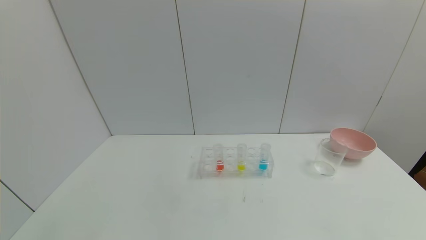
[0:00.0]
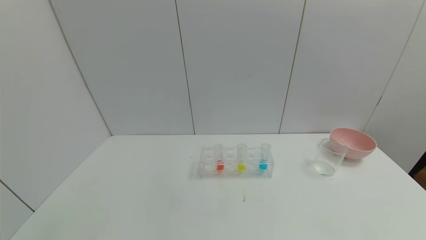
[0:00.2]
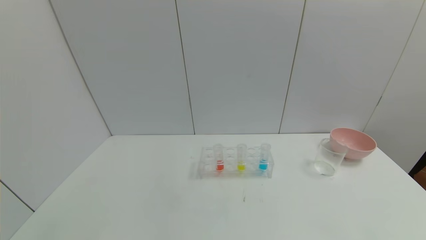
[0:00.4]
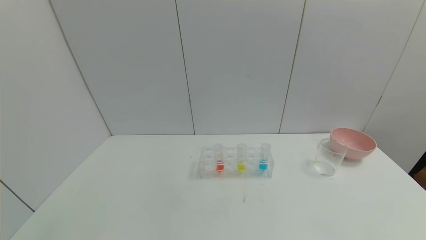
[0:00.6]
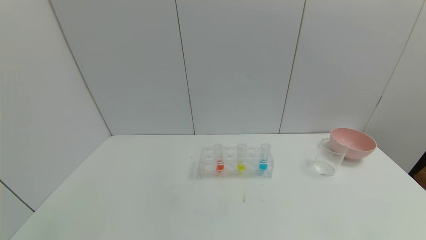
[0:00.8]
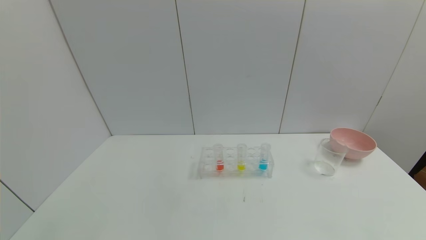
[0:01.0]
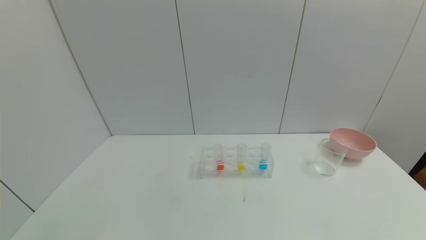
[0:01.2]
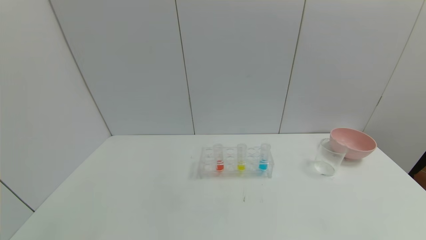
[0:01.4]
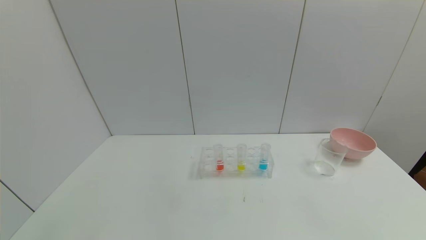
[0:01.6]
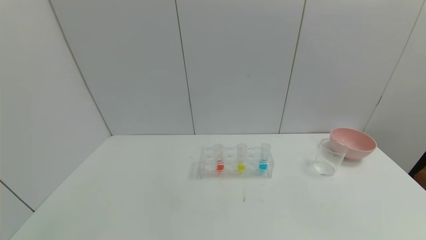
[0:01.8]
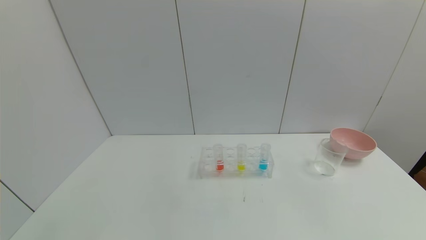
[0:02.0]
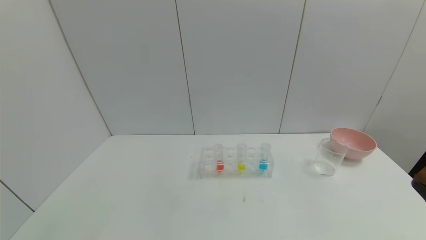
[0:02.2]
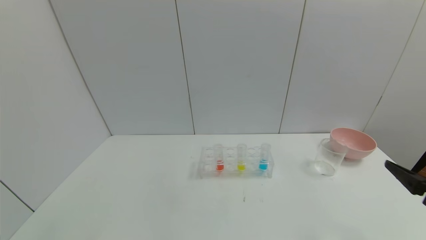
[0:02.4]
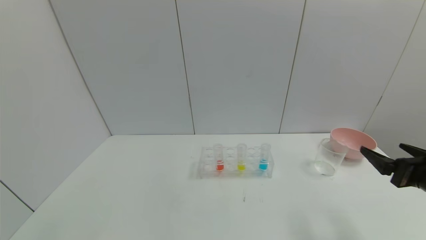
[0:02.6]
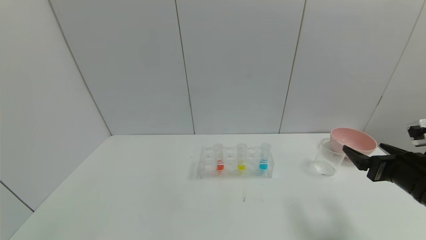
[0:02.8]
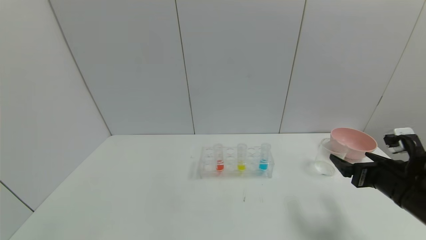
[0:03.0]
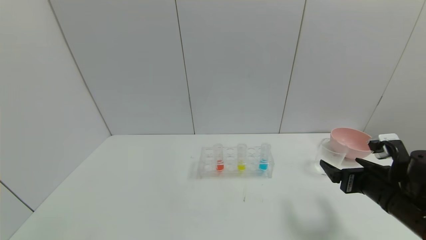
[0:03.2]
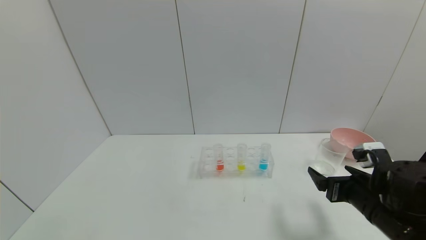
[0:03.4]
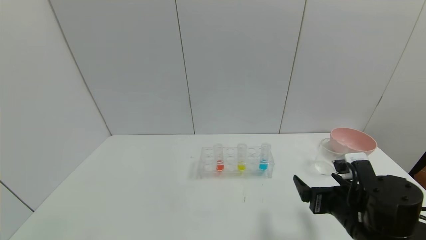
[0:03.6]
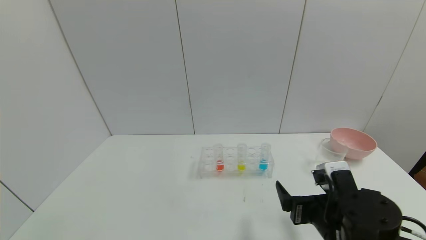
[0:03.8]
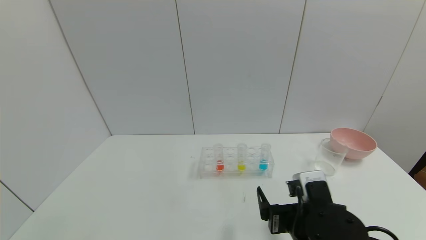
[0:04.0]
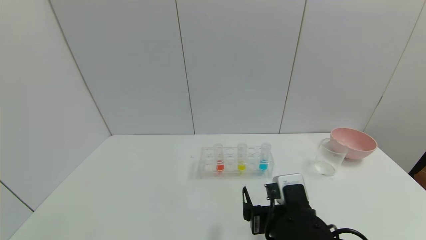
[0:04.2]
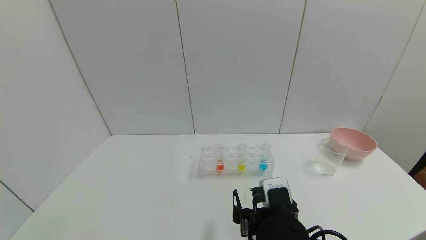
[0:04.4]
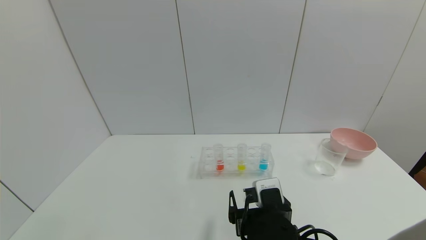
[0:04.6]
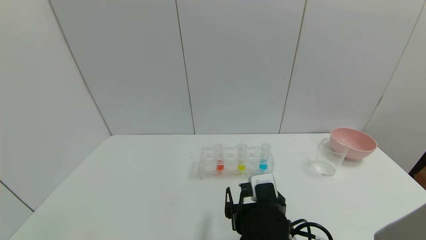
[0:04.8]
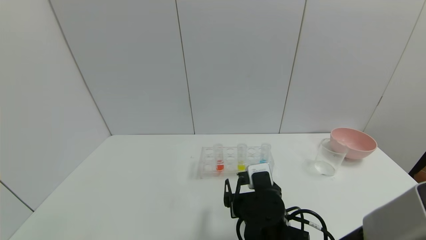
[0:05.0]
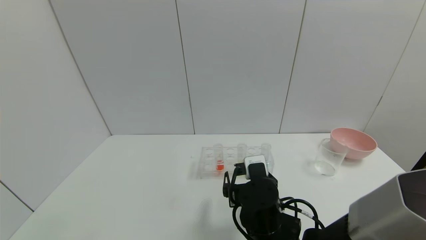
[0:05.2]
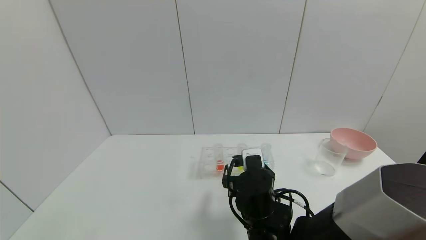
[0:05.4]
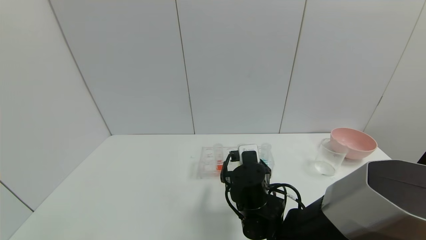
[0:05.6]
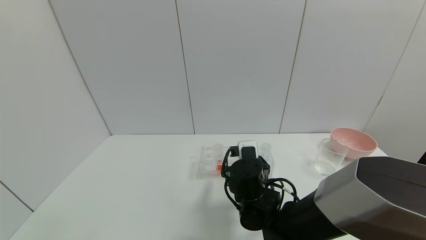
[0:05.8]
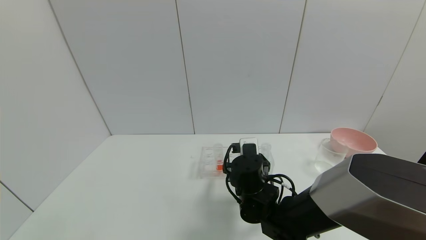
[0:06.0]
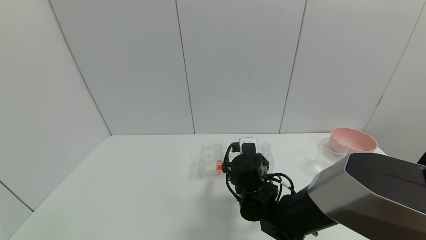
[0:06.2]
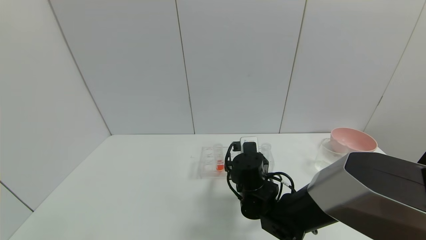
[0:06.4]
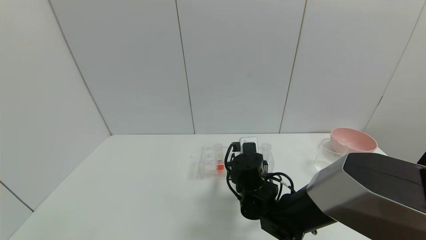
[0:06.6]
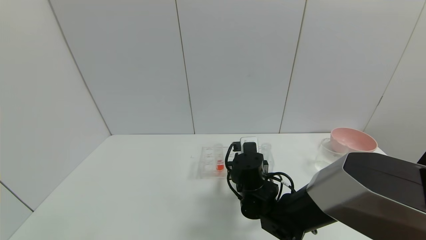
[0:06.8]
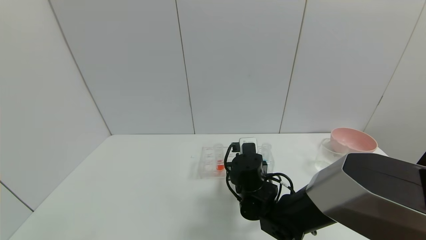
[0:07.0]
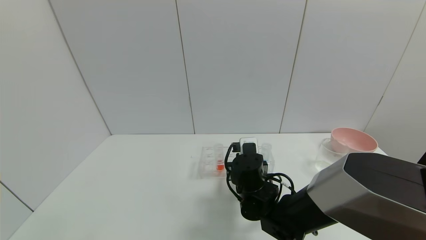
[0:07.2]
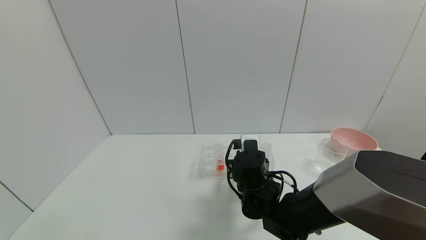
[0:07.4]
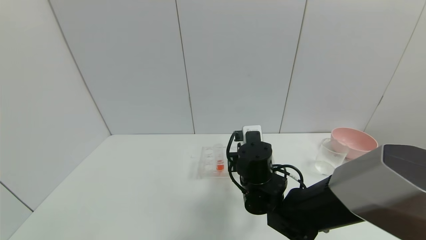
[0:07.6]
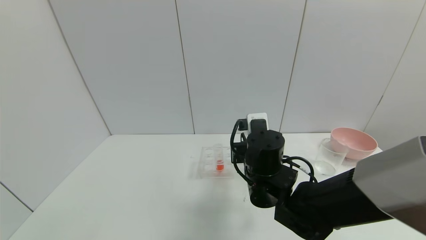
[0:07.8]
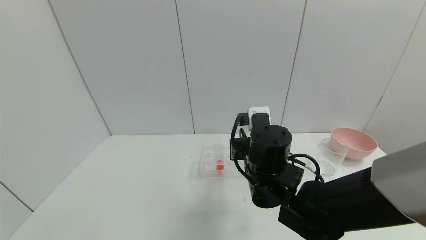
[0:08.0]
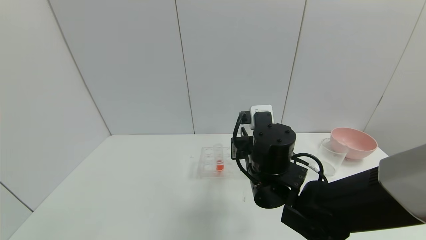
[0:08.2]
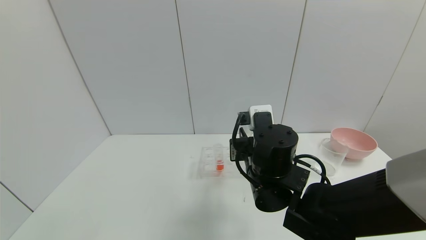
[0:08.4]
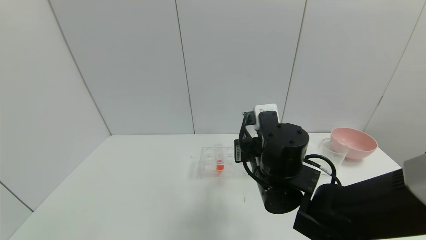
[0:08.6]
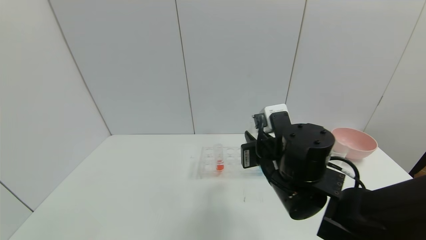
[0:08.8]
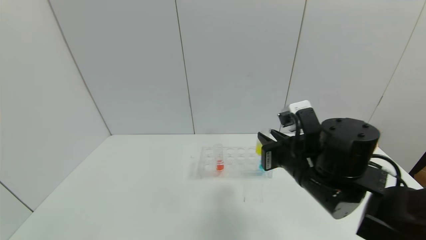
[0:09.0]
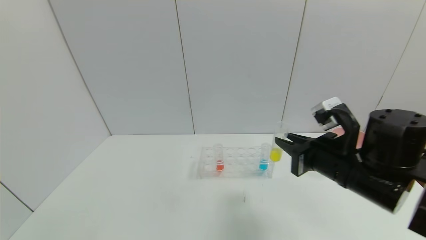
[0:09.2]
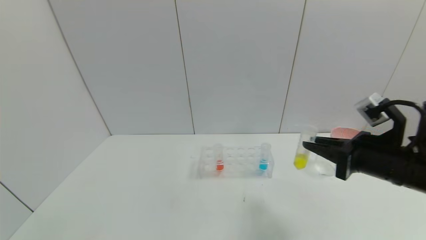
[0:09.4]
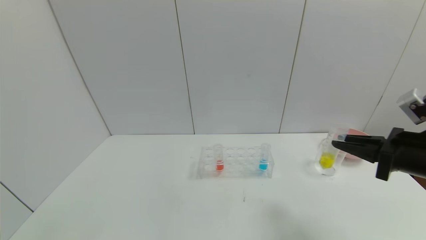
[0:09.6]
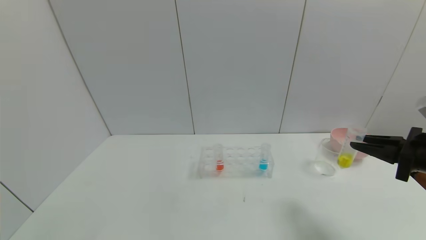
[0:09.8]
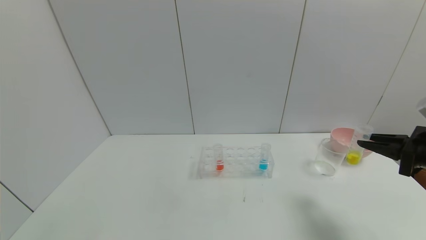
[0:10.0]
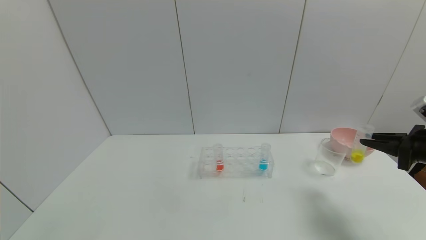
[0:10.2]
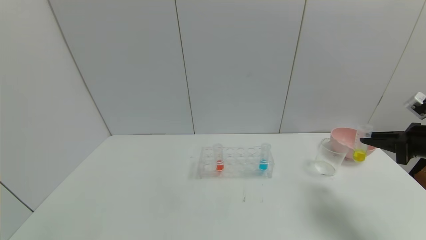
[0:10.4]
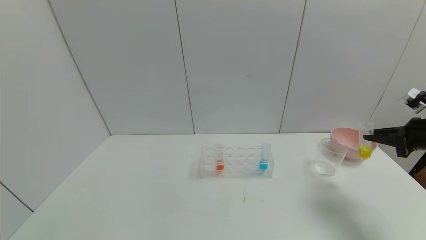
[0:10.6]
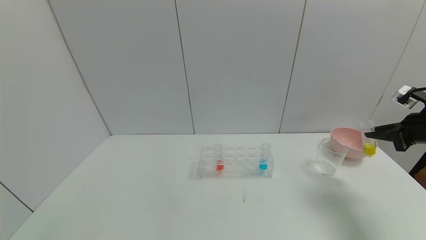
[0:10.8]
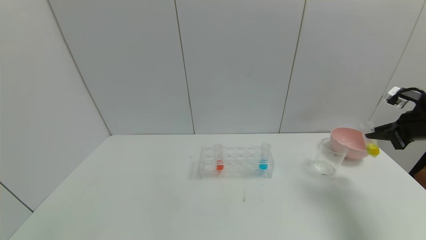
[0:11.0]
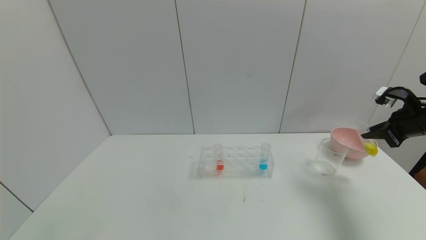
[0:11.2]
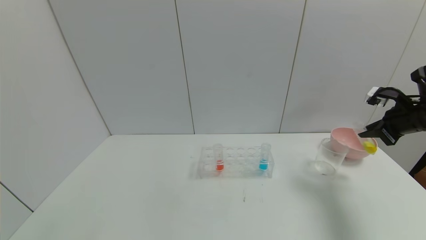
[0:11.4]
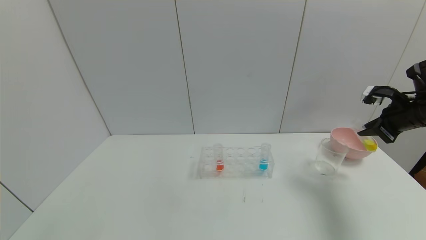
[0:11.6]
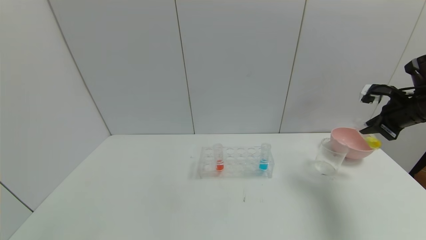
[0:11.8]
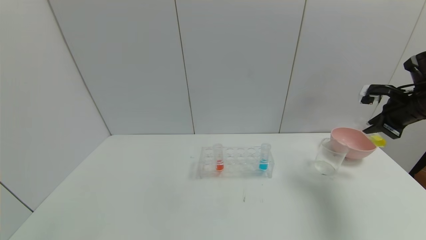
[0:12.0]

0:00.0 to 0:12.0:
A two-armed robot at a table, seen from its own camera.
Task of the whole recording: pick up the test tube with yellow pigment and the test tube with blue pigment by grippers and pour them into the beaker.
Step, 0:00.0 to 0:07.0: Grasp the yellow reagent with the right gripper.
0:01.6 to 0:03.0: The right gripper travels forward by approximately 25 cm.
0:03.0 to 0:04.4: The right gripper shifts some 25 cm to the left.
0:04.4 to 0:06.0: The right gripper goes roughly 15 cm forward.
0:06.0 to 0:07.6: The right gripper closes up.
0:07.6 to 0:09.0: The right gripper goes approximately 15 cm to the right, upward and backward.
0:09.0 to 0:10.4: The right gripper shifts approximately 30 cm to the right.
0:10.4 to 0:12.0: The right gripper shifts approximately 10 cm forward.

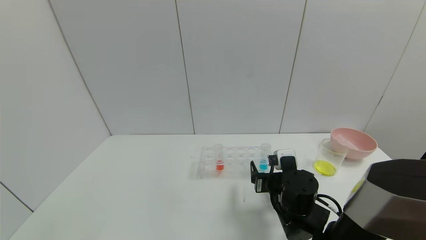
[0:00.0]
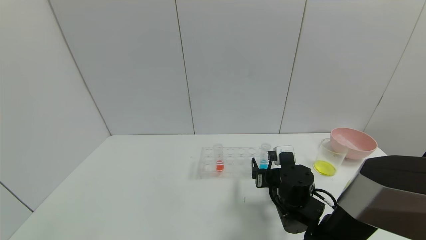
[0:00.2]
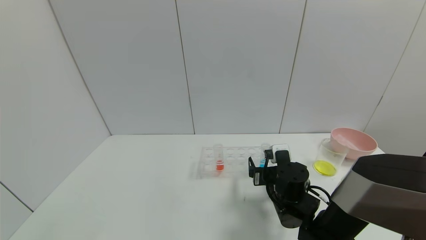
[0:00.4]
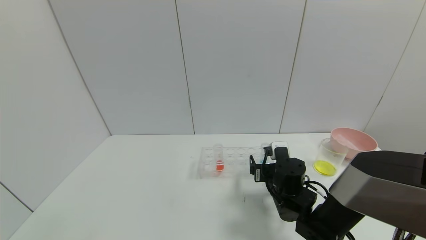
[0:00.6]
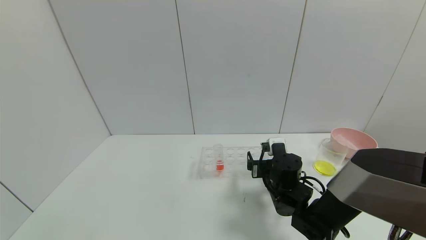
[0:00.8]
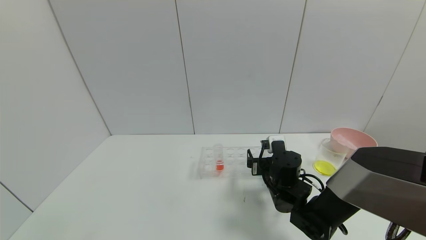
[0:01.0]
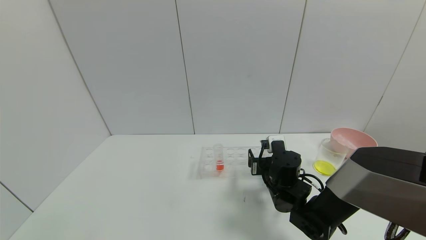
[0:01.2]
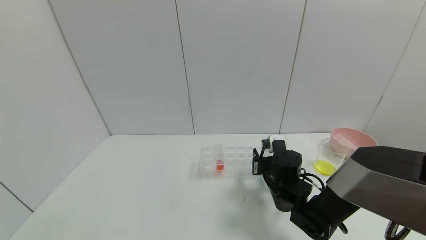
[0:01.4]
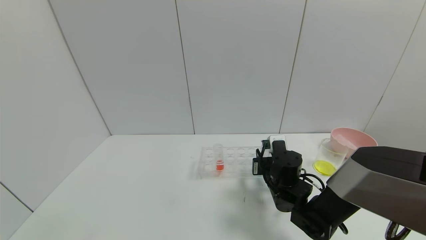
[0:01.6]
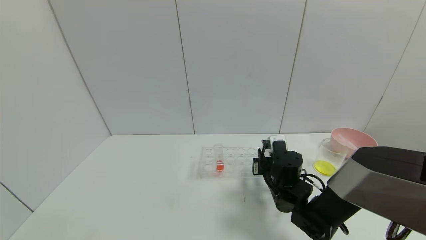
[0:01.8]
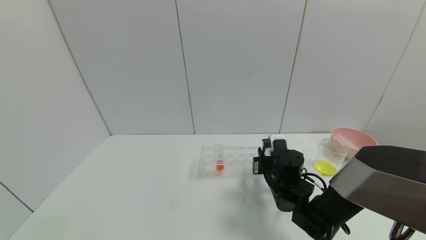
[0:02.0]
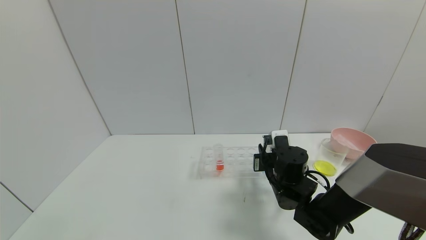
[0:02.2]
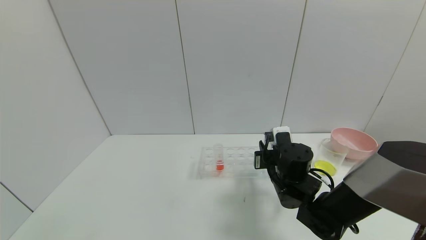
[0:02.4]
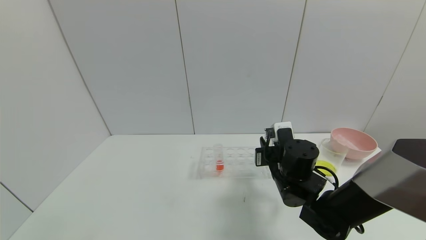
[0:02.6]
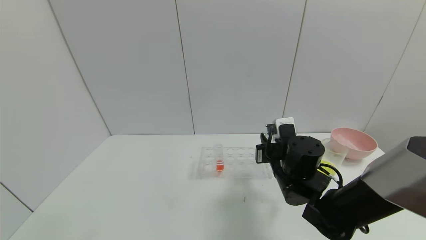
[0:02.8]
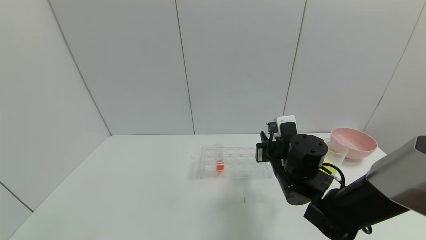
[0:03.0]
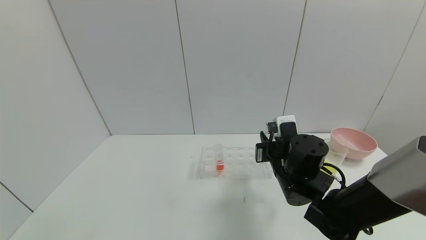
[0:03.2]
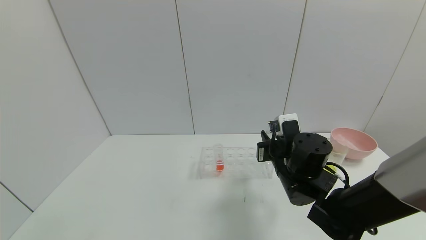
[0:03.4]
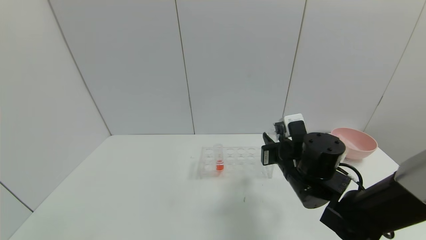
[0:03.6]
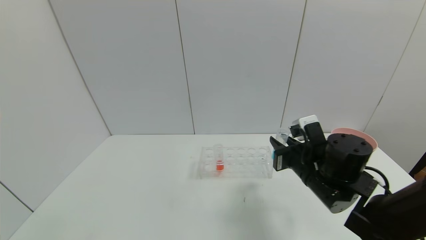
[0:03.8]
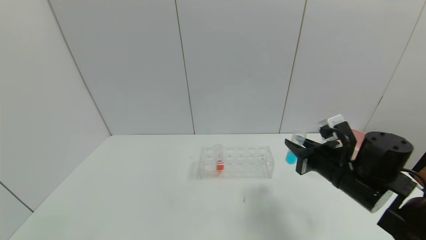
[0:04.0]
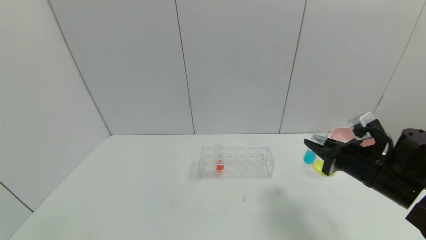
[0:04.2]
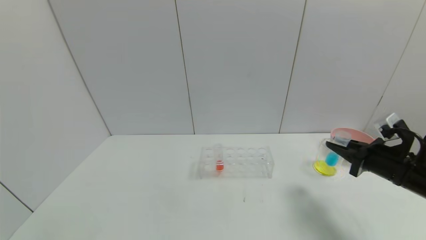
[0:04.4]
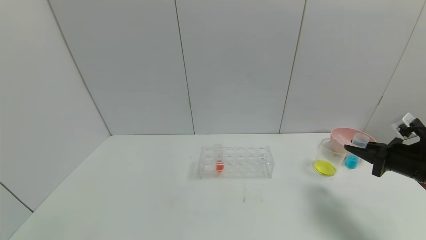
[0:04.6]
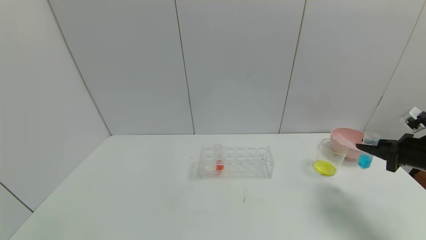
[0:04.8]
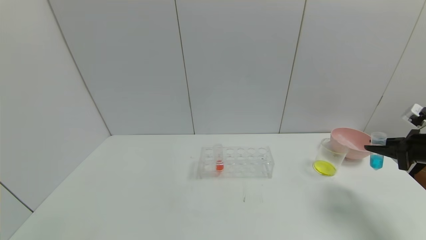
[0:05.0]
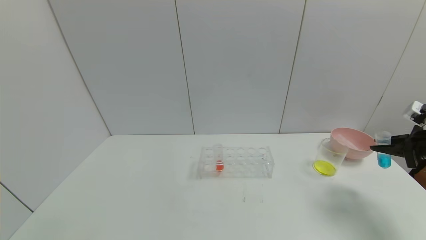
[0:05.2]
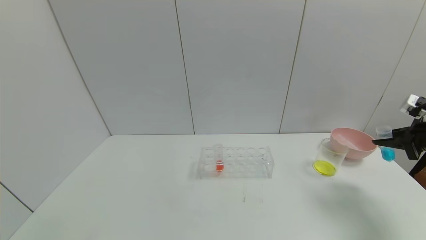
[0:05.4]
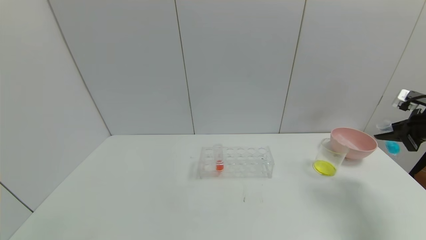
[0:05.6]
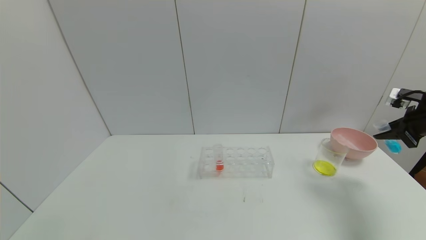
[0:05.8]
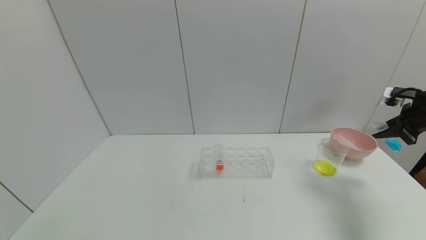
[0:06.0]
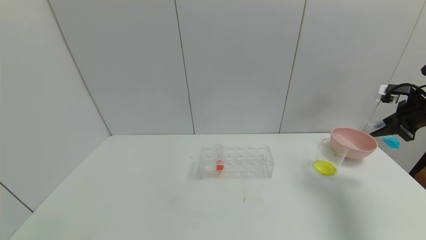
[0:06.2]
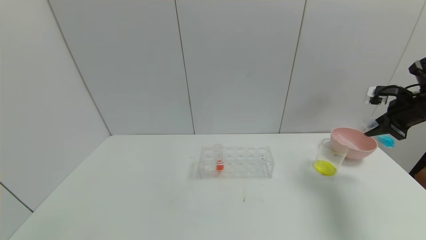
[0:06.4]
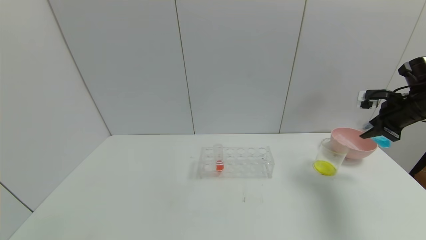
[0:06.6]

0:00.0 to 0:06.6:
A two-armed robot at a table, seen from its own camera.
Task of the whole recording: pick up the test tube with yellow pigment and the test tube with blue pigment by grippers and pour them into the beaker.
Step, 0:00.0 to 0:01.8: Grasp the blue reagent with the right gripper.
0:00.0 to 0:01.6: The right gripper goes some 5 cm forward, and closes its fingers.
0:01.6 to 0:03.2: The right gripper is displaced upward by approximately 5 cm.
0:03.2 to 0:05.0: The right gripper shifts roughly 35 cm to the right.
0:05.0 to 0:06.6: The right gripper shifts approximately 10 cm forward and upward.
